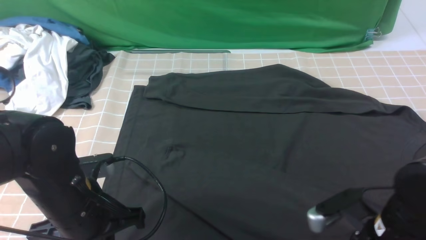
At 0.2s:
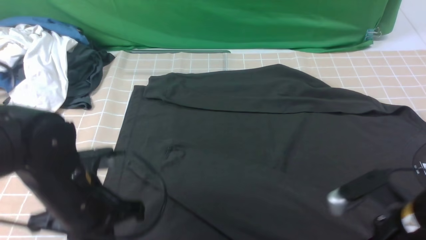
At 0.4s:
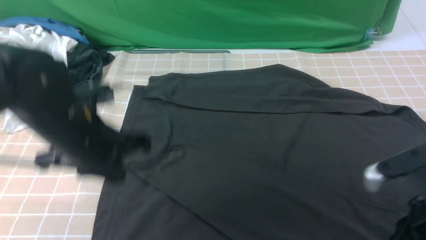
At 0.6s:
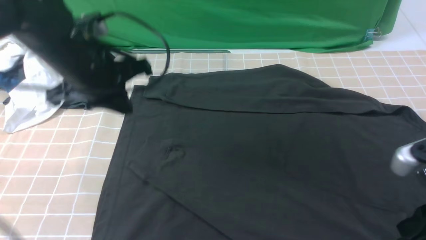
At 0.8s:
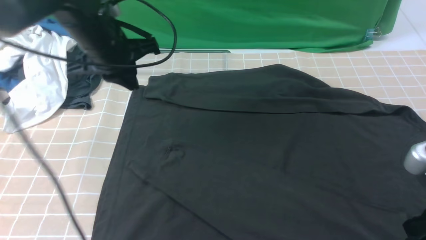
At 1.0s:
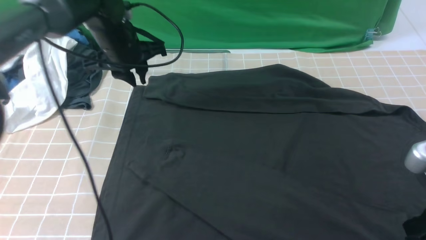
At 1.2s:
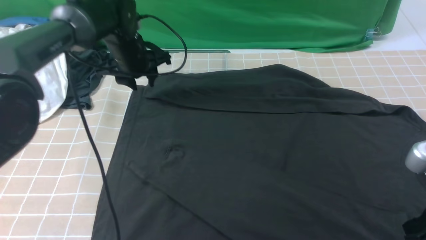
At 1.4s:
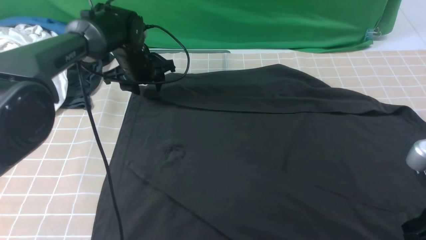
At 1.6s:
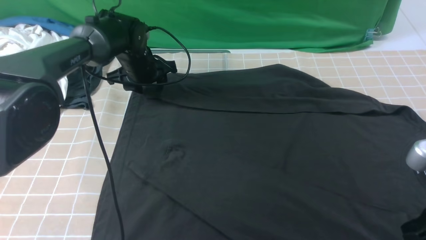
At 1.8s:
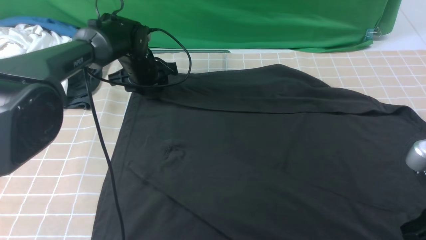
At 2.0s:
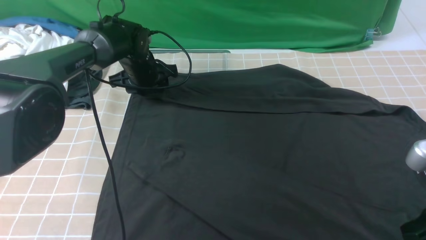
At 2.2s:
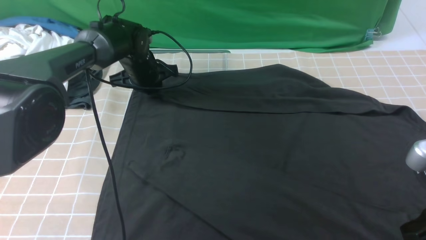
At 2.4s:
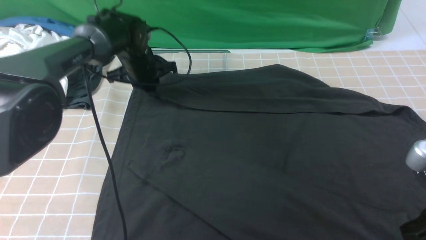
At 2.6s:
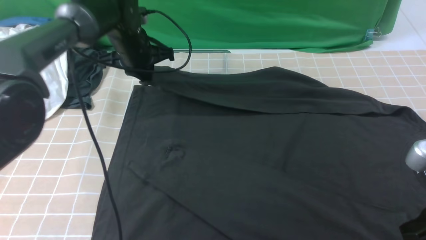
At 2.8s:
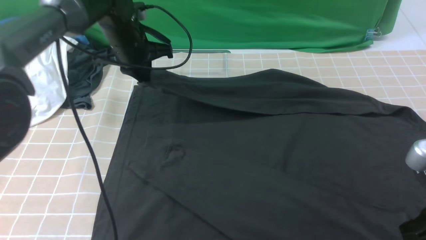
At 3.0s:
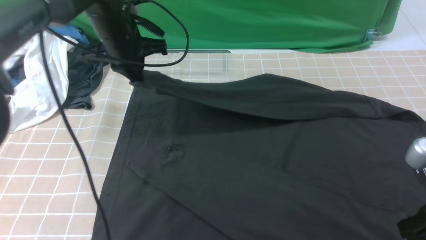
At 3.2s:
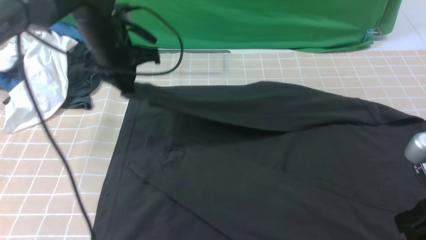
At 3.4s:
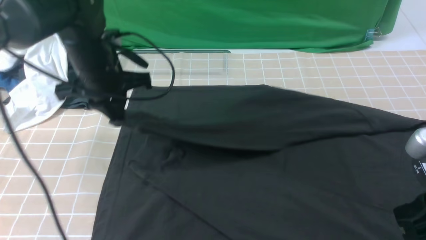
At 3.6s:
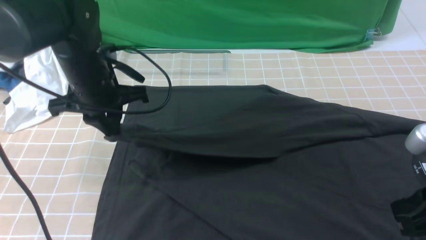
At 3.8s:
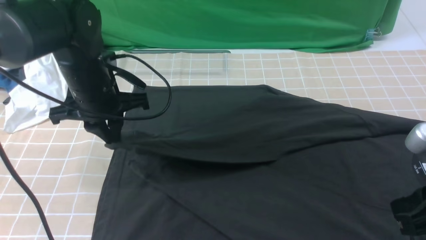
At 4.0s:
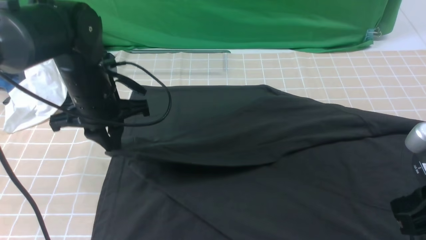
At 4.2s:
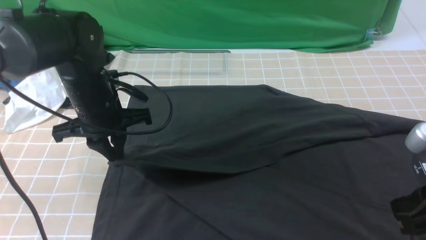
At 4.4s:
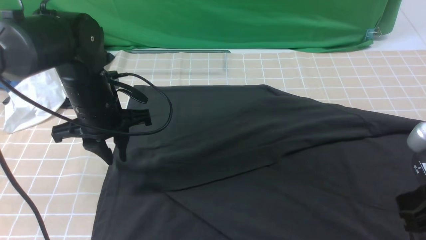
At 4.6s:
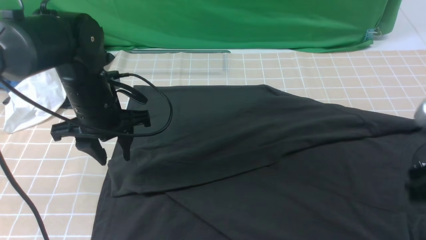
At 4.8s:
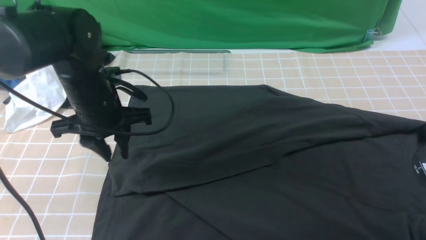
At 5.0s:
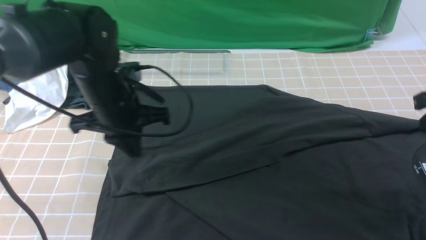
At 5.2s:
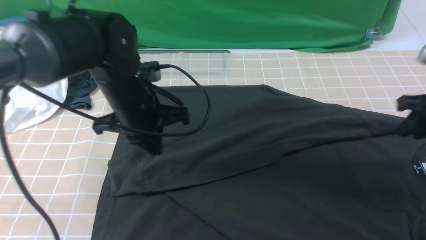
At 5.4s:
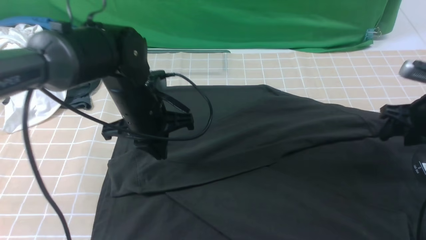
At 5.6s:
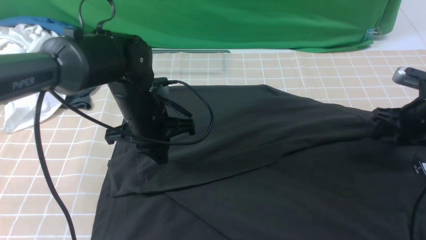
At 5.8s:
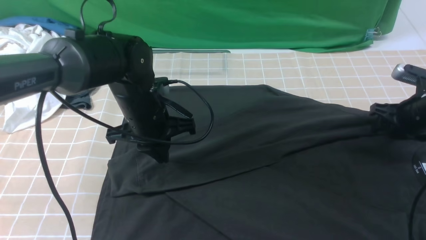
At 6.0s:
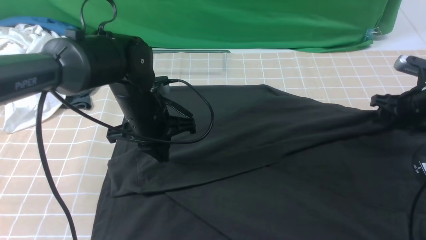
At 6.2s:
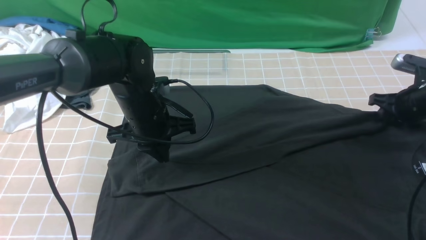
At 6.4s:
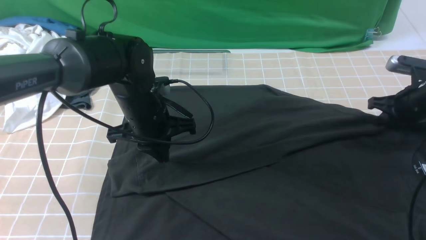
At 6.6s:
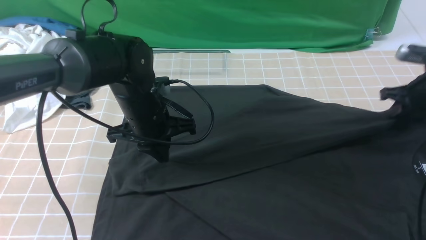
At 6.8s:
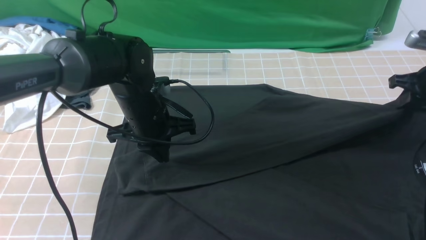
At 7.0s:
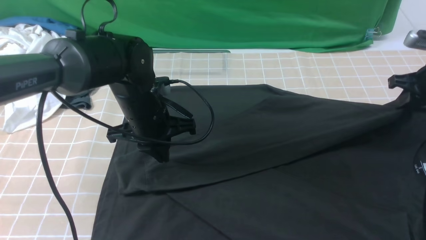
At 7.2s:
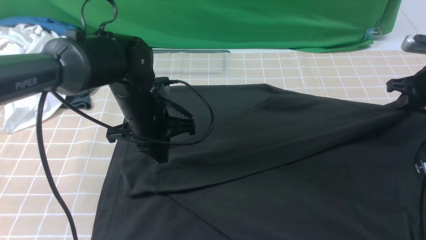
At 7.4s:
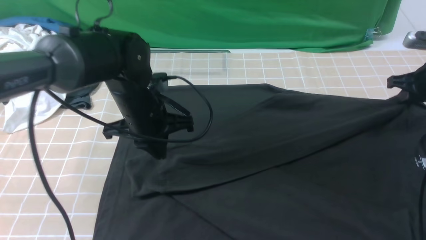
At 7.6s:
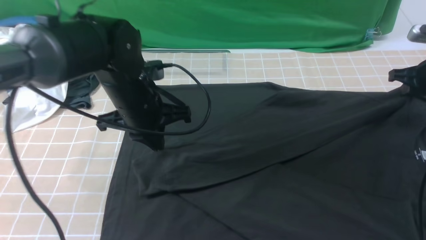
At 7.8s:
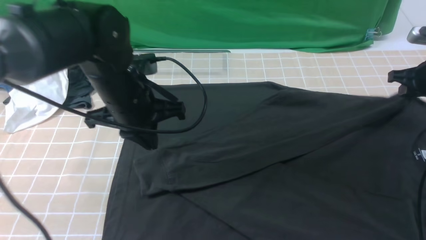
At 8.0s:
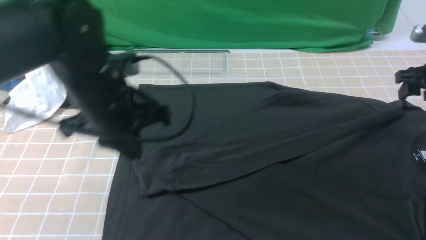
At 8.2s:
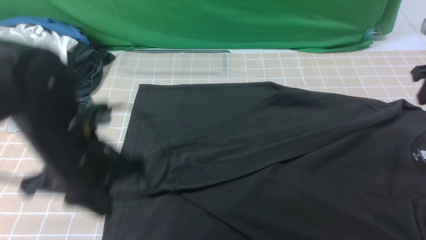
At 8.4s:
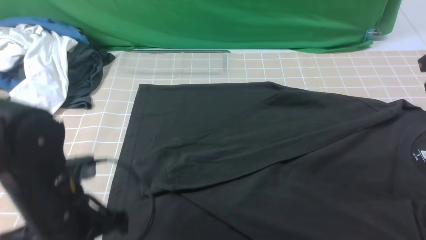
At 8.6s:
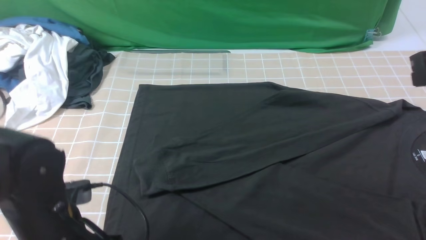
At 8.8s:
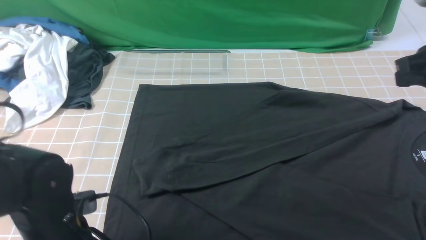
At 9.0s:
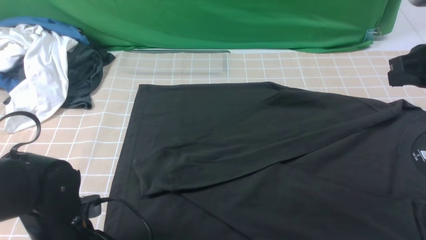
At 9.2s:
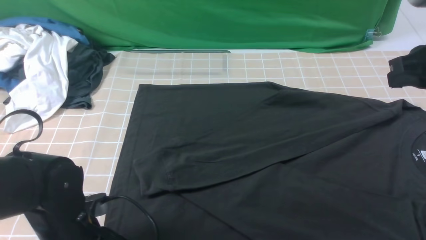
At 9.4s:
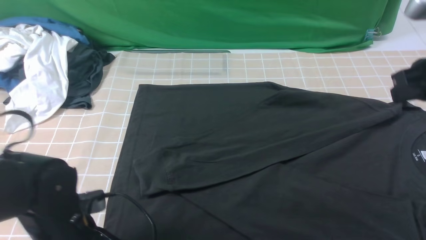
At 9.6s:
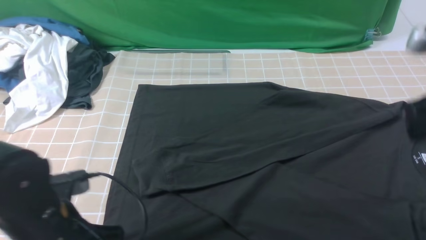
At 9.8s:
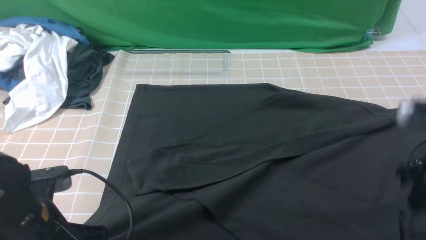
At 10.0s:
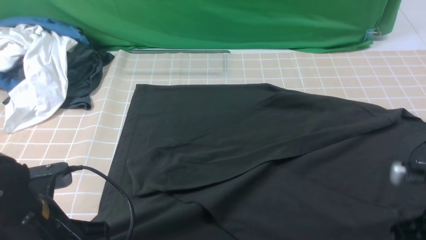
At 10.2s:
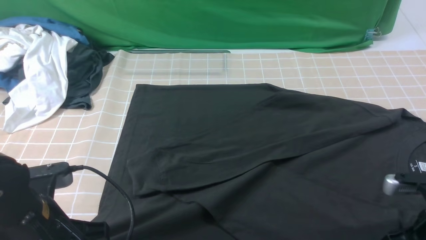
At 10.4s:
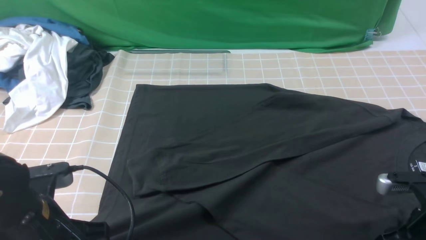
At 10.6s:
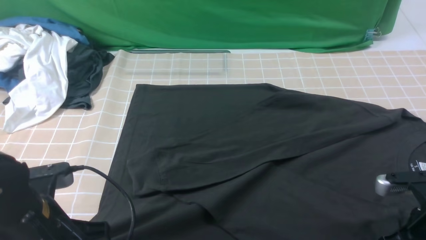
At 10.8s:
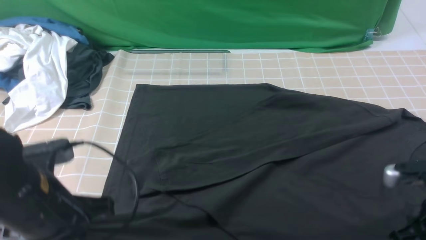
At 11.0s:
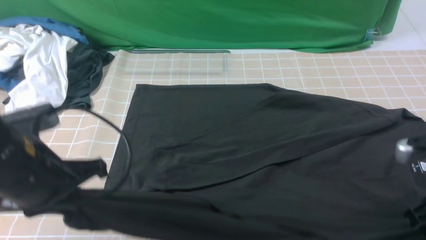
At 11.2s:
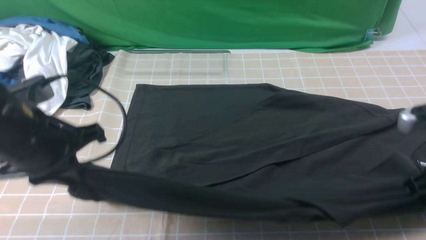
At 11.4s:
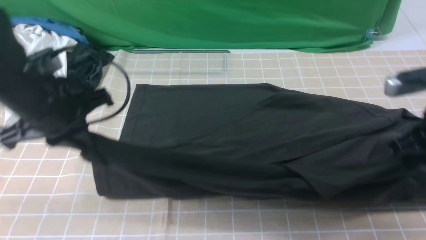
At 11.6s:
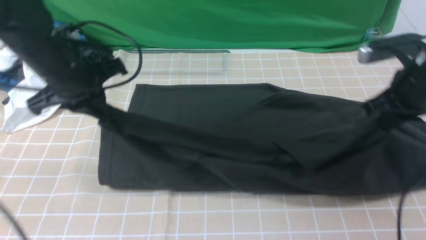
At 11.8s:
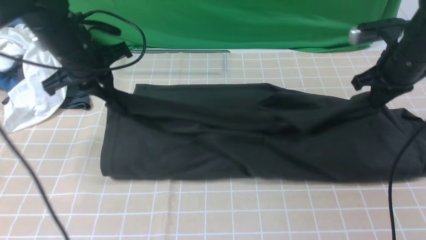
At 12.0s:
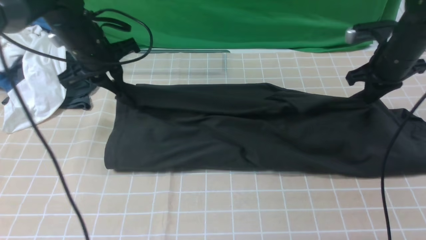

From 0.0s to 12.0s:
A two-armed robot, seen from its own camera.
Step, from 0.0s to 2.2s: use the left arm to clamp the cuff farthest from it.
Step, from 2.4s to 4.6s: use the left arm to drag and drop the cuff onto the cuff closest to the left arm.
Step, from 4.8s to 10.6s: use both arms simultaneously to clamp the lower edge of the clothing fabric.
From 0.0s to 1.6s: The left gripper shifts some 30 cm forward, and opens its fingers, while the right gripper moves upward and to the right, approximately 10 cm.
From 1.6s to 3.0s: The left gripper is displaced upward and backward by approximately 10 cm, and closes up.
From 3.0s to 4.4s: The left gripper moves backward, about 10 cm, and opens up.
From 4.4s to 6.0s: The left gripper heads to the right, covering some 5 cm, and closes up. Meanwhile the right gripper heads forward, downward and to the right, covering some 30 cm, and opens up.
From 6.0s to 7.6s: The right gripper moves some 5 cm, and closes up.
From 7.6s to 9.0s: The right gripper travels upward, backward and to the left by approximately 25 cm, and opens, then closes once more; the left gripper heads backward and downward, covering approximately 20 cm, and opens.
From 9.0s to 10.4s: The left gripper is displaced upward by roughly 5 cm, and closes its fingers, while the right gripper goes some 20 cm downward and backward, and opens.
From 10.4s to 12.0s: Both grippers travel together forward, roughly 25 cm. The right gripper closes up.

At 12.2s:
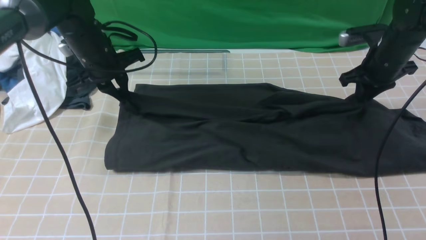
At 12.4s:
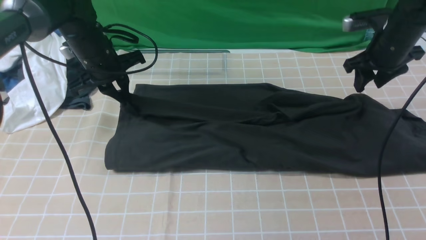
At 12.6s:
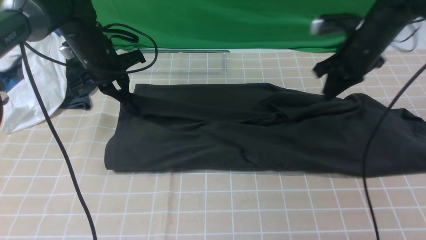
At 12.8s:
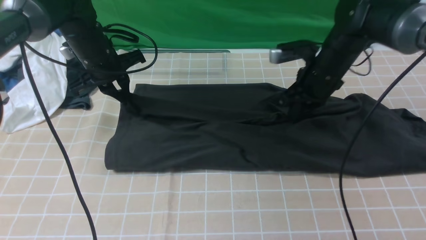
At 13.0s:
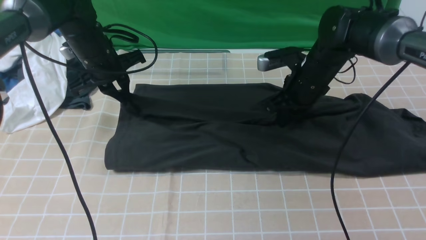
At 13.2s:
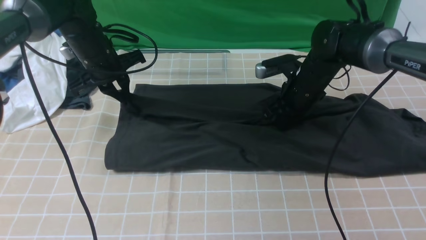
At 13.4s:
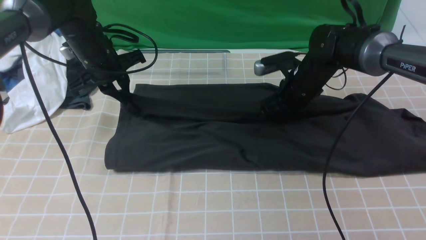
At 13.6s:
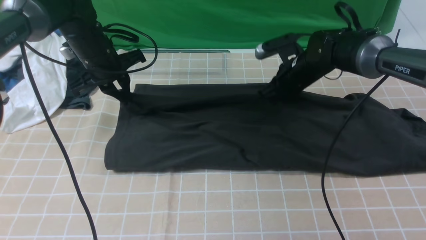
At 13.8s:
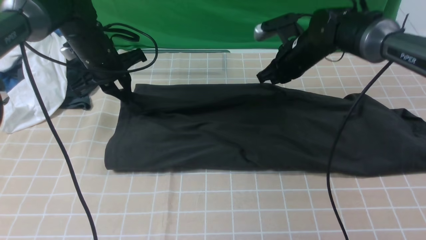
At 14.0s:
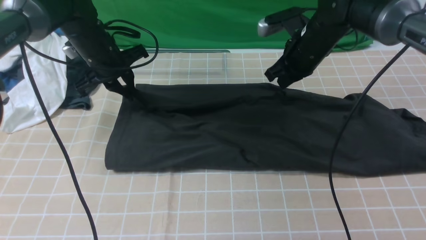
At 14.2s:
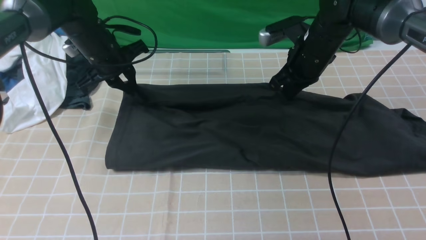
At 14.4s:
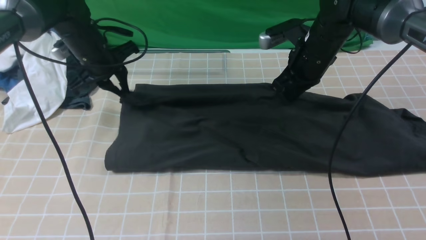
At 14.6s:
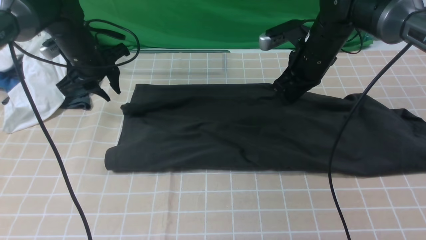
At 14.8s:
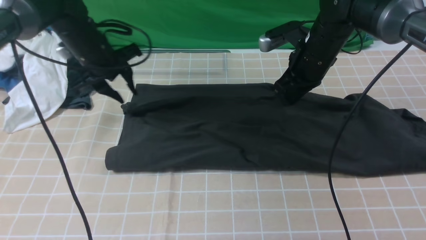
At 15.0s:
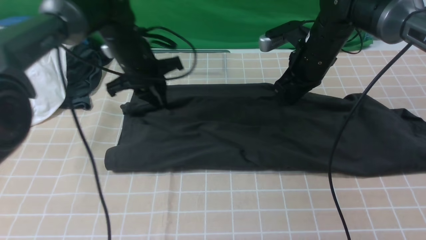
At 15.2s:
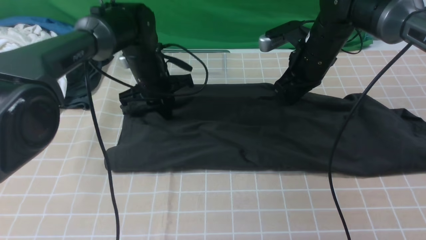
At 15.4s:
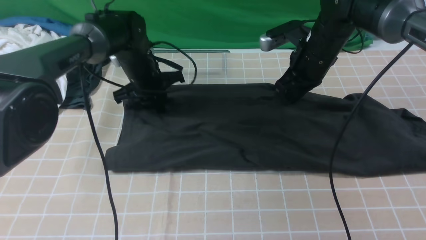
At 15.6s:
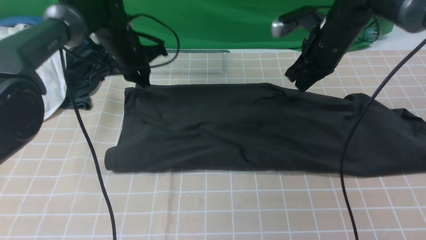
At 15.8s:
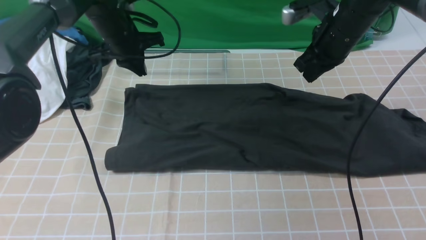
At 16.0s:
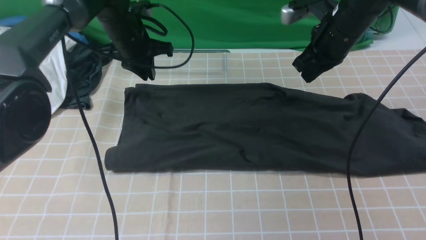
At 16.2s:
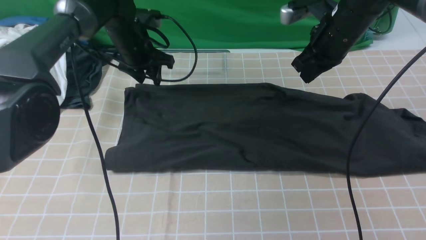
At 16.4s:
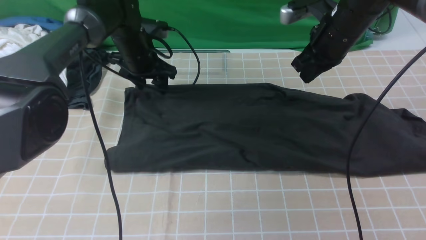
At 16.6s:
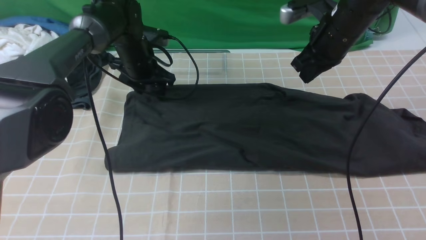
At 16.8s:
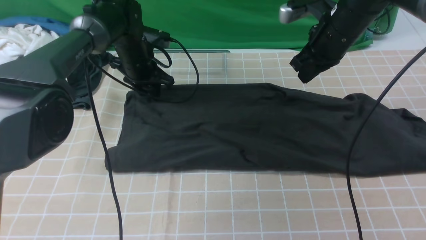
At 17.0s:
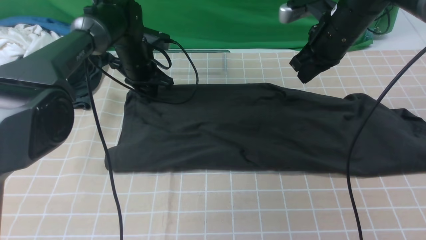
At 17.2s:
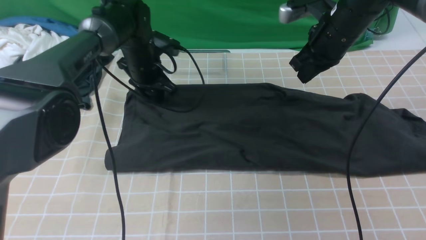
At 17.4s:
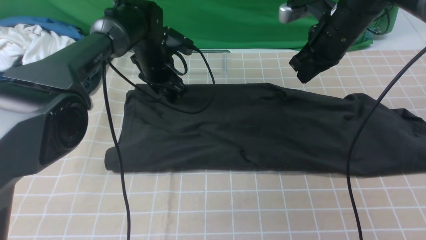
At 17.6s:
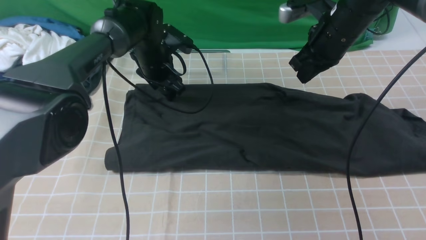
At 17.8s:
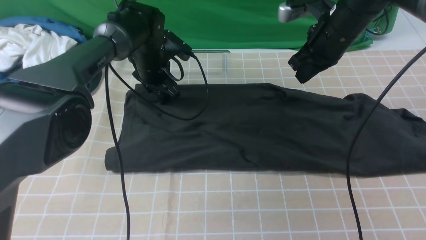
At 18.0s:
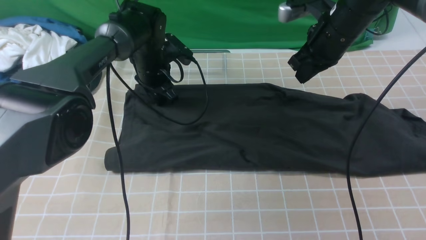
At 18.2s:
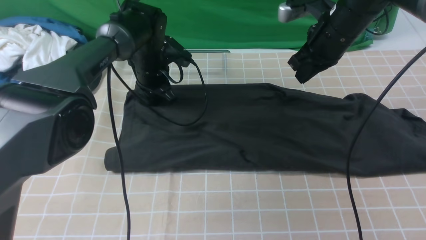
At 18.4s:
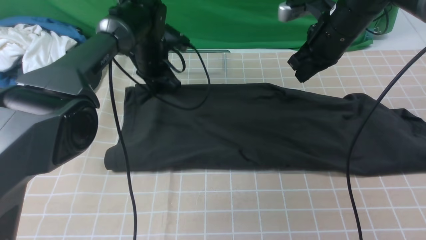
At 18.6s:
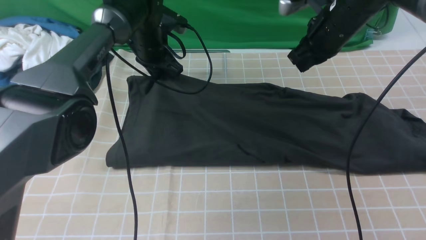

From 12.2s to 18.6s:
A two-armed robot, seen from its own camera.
From 12.2s to 13.8s: The right gripper is displaced to the left by some 15 cm, and closes.
From 13.8s to 15.4s: The left gripper moves to the right, approximately 5 cm, and opens, then closes once more; the right gripper changes place by about 5 cm.
From 15.4s to 17.0s: The left gripper opens up.
From 17.0s to 18.6s: The left gripper closes its fingers.
